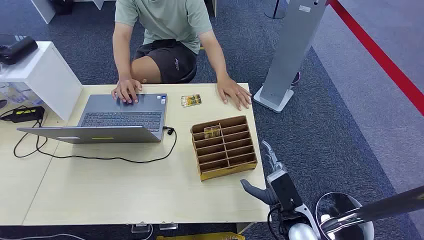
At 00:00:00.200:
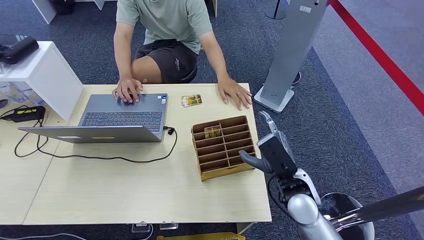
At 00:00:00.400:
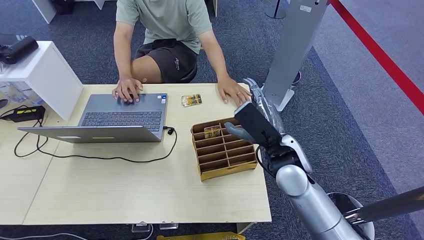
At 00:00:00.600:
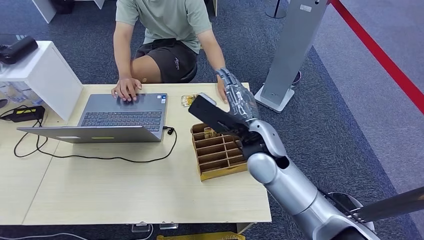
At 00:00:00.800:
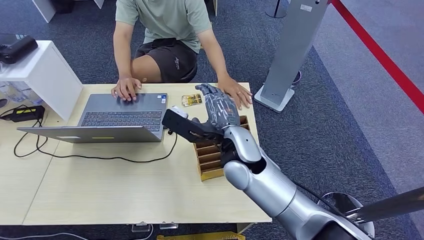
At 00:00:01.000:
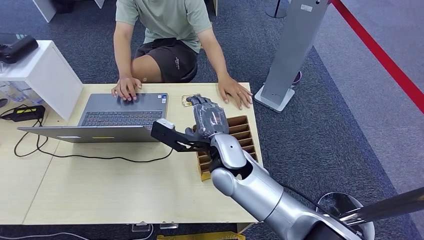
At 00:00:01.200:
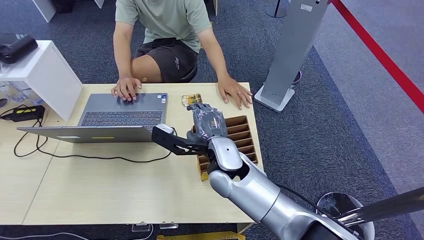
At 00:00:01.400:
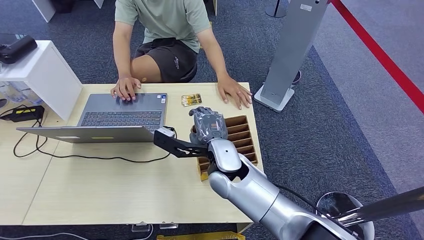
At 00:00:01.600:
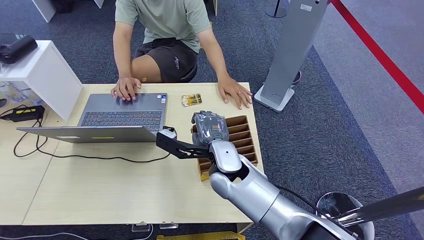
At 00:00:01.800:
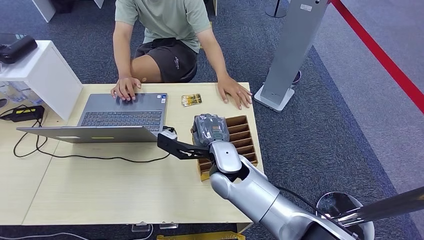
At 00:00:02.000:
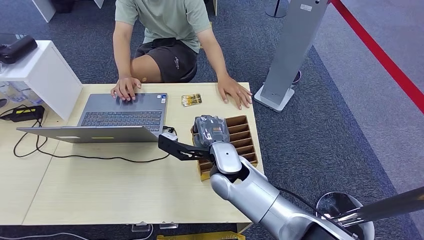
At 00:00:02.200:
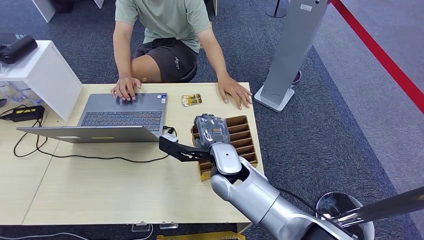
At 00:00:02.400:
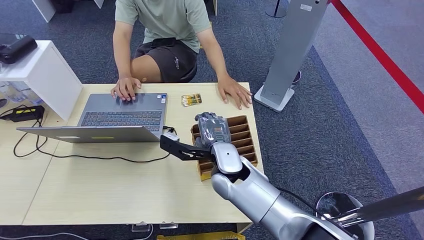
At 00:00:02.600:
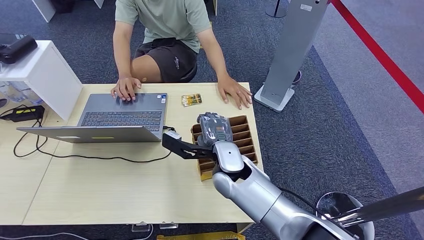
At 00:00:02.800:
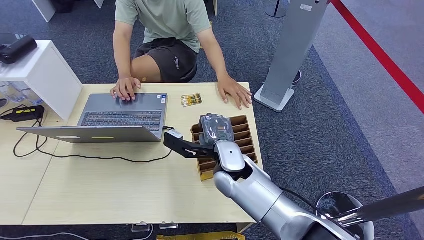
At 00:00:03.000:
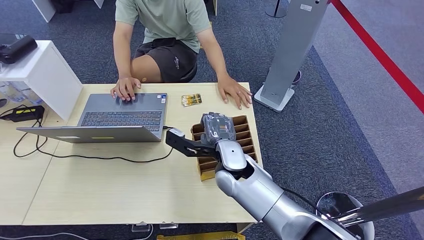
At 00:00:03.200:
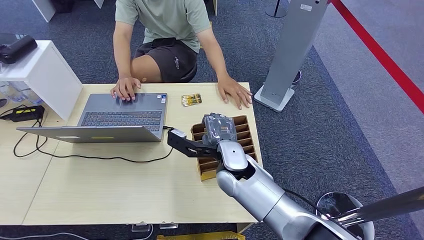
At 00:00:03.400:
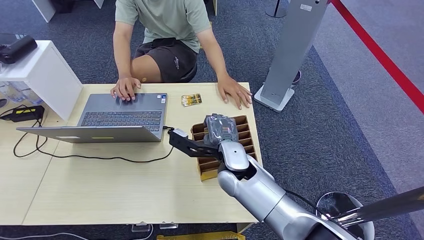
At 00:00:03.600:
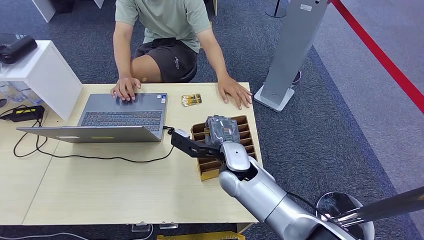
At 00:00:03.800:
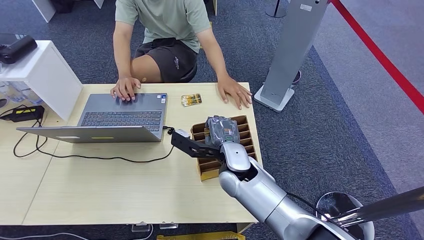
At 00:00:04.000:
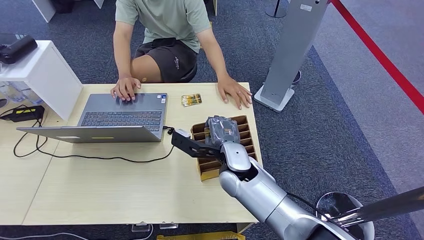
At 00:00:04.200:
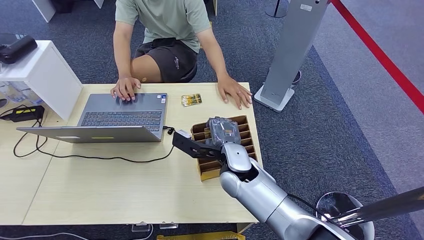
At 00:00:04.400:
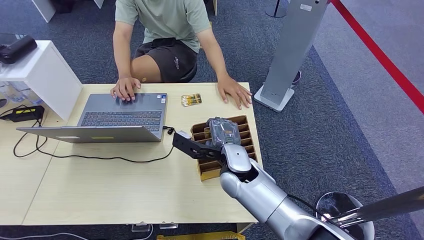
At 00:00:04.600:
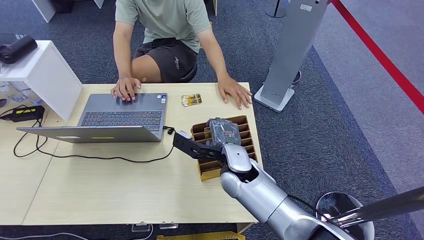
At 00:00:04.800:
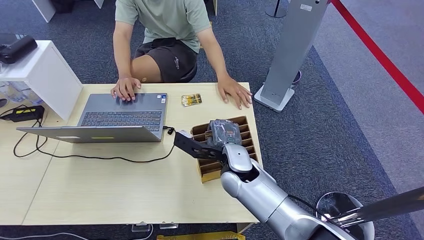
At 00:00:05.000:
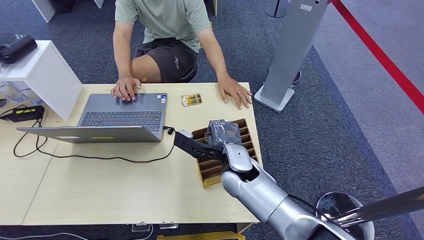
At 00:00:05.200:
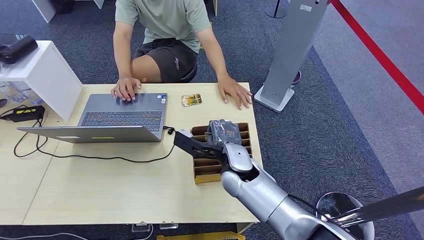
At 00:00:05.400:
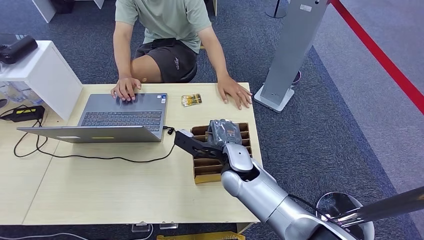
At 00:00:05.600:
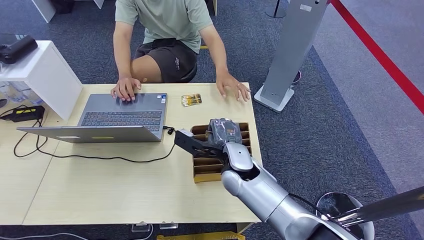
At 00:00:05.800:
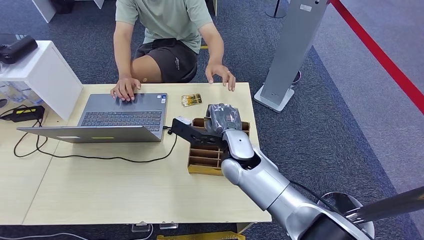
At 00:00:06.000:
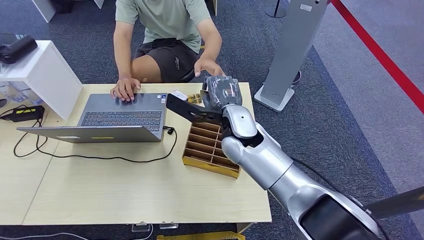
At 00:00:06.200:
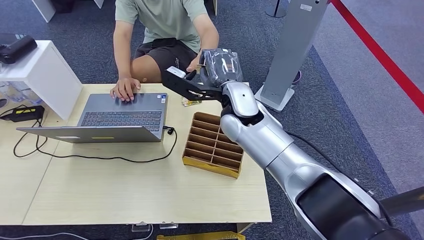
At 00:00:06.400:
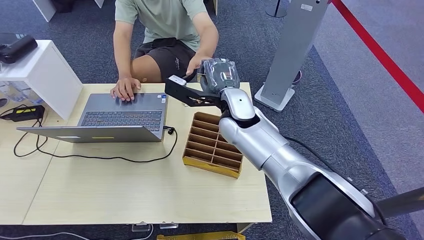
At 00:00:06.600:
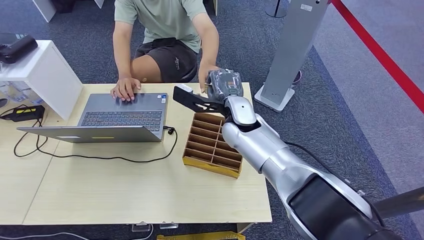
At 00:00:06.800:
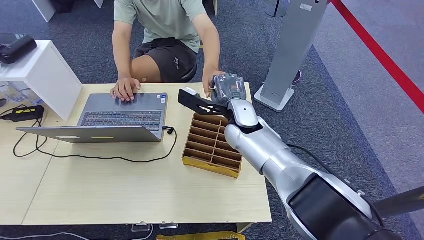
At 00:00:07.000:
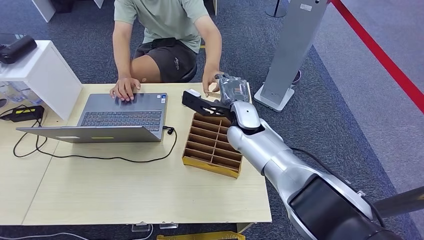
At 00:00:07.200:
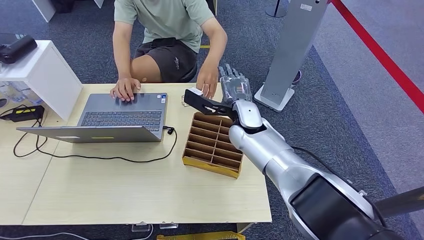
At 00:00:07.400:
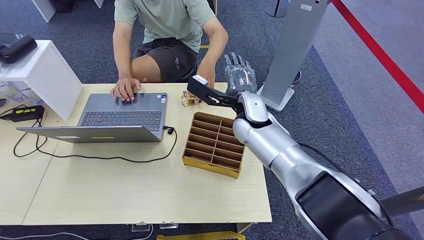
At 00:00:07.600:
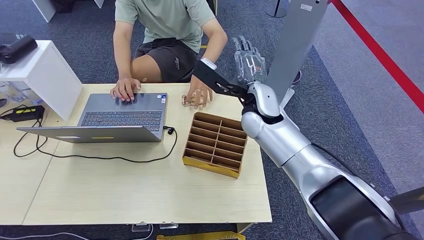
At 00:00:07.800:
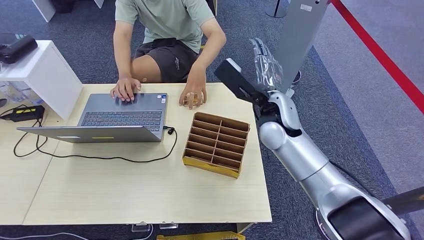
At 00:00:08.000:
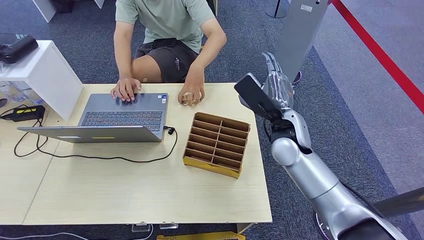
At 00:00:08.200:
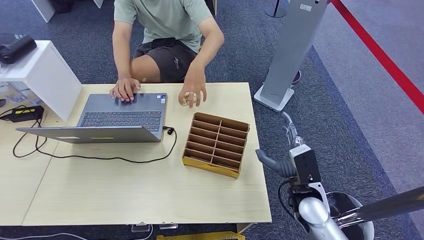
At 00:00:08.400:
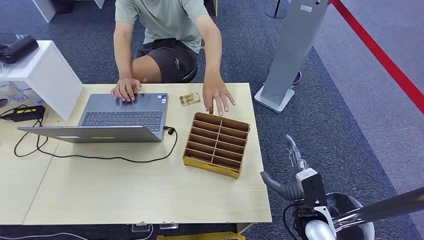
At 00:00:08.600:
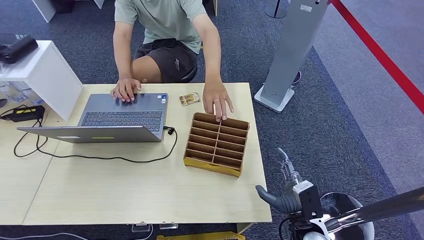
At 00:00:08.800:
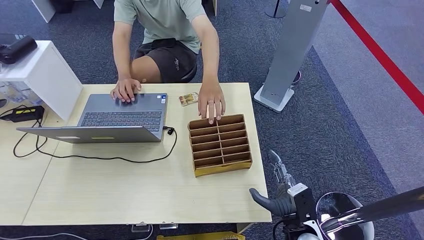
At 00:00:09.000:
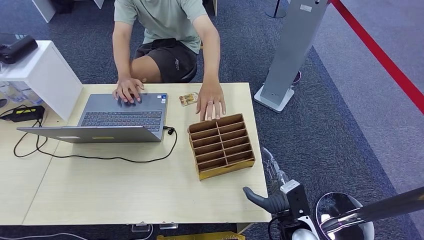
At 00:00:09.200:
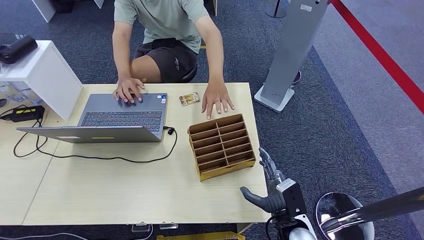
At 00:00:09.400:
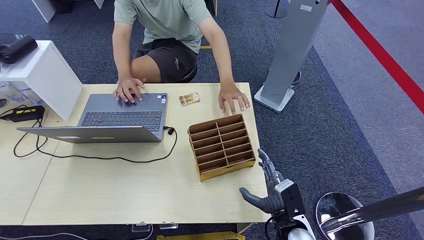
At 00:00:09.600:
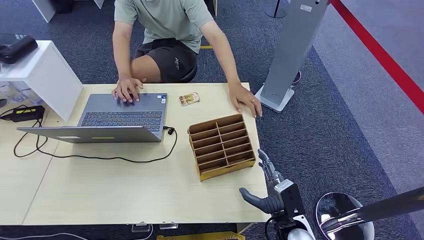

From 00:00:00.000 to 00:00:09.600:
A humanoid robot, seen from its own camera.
Step, from 00:00:00.000 to 00:00:05.800: Pick up the key card from the card box.
Step, from 00:00:06.000 to 00:00:09.400: Hand the key card to the target.
From 00:00:01.600 to 00:00:04.800: The hands make only small movements.
From 00:00:04.800 to 00:00:06.400: The right hand heads upward and forward, covering roughly 15 cm.
From 00:00:06.400 to 00:00:08.000: The right hand is displaced to the right, backward and downward by roughly 15 cm.
From 00:00:08.000 to 00:00:09.600: The right hand travels downward and backward by roughly 25 cm.
